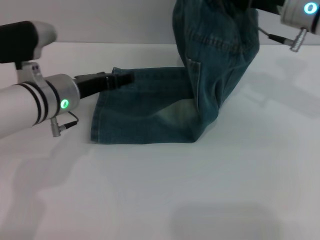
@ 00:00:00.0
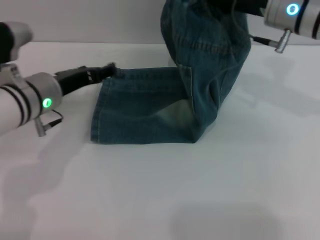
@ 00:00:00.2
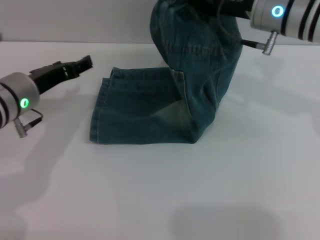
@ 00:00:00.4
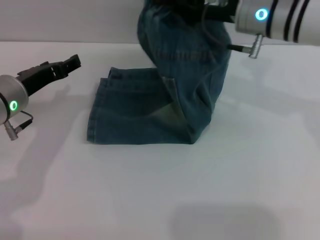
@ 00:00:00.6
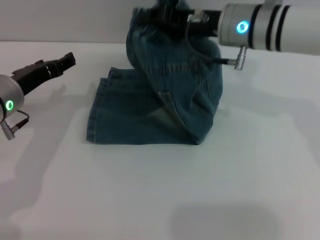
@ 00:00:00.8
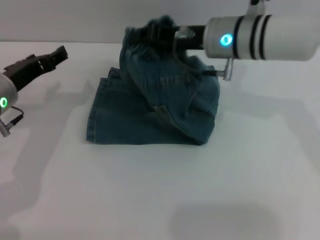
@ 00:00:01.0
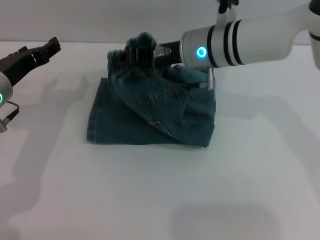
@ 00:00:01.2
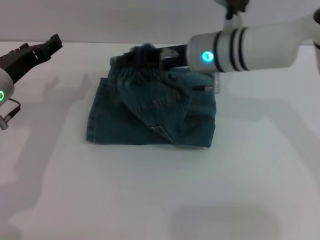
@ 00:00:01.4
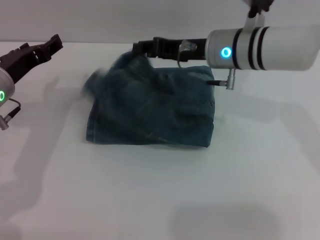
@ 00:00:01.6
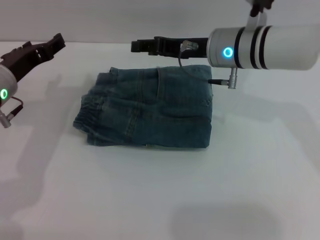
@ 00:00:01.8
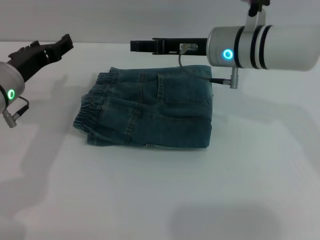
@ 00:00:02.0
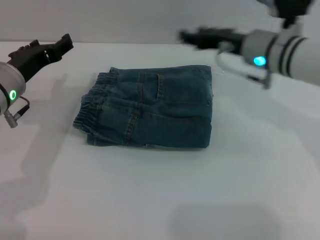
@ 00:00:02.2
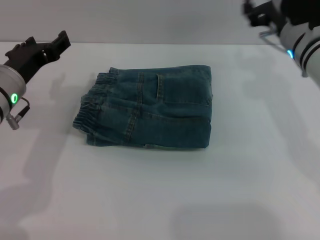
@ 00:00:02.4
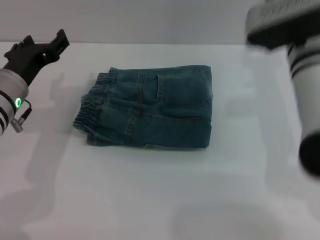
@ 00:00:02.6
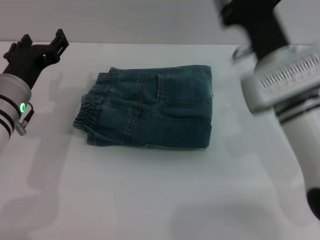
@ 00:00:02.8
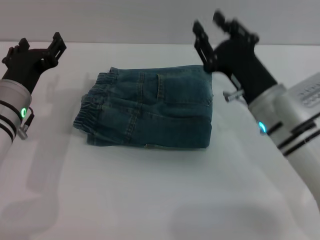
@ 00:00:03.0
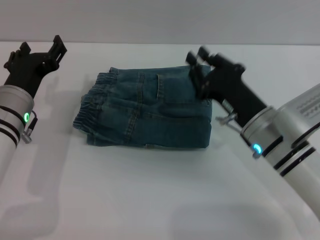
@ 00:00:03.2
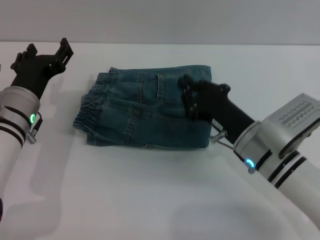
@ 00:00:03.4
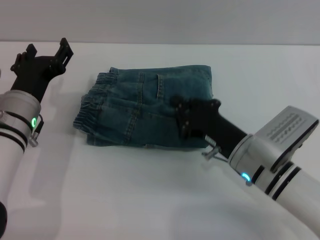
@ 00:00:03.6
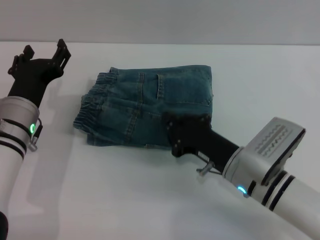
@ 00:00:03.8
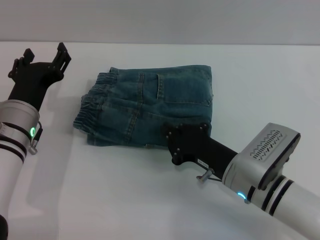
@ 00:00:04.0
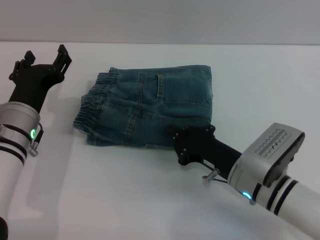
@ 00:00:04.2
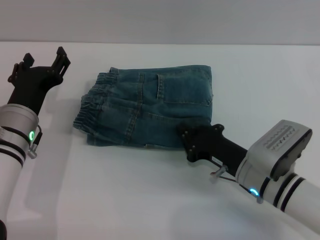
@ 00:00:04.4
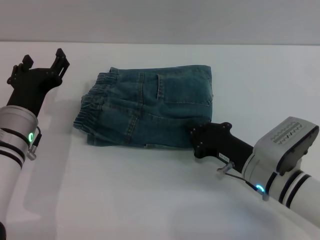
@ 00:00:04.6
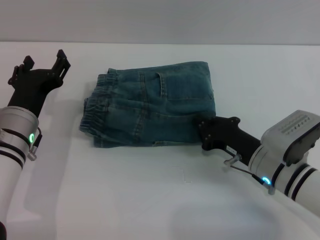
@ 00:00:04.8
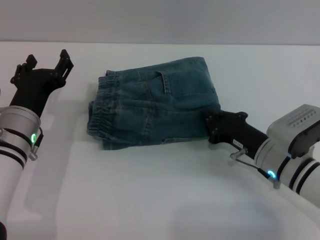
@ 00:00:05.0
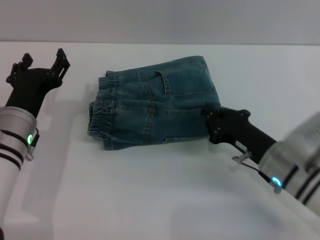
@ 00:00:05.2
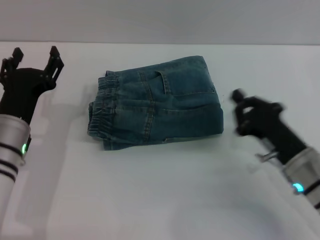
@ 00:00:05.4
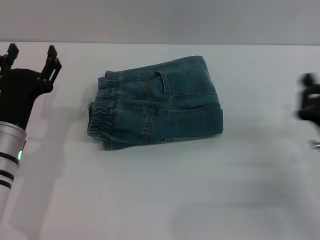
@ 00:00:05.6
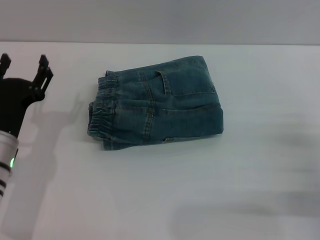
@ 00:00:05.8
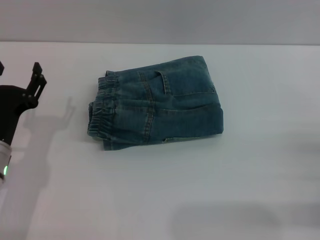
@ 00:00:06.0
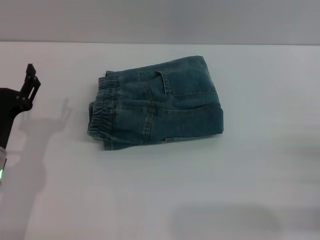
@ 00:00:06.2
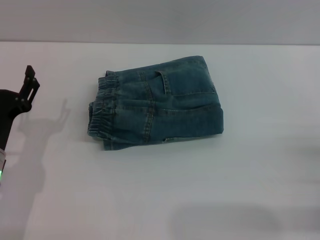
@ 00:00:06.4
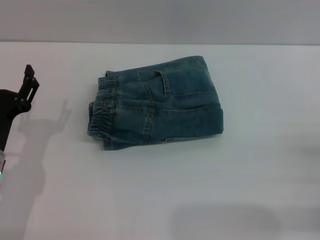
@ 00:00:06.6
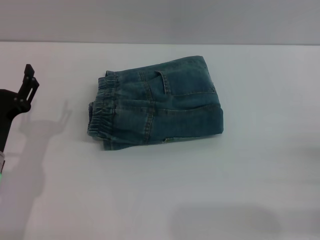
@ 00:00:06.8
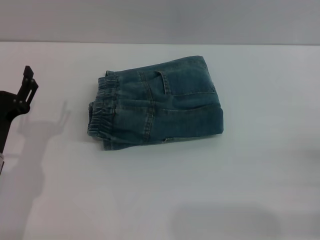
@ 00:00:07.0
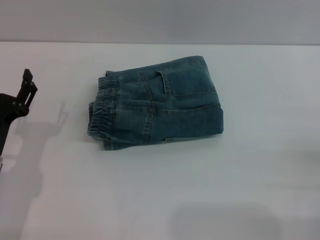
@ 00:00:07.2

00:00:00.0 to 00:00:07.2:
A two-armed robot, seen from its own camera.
Step, 00:00:00.0 to 00:00:02.2: Fold the pants from right to left with the right gripper.
Step, 00:00:02.4 to 00:00:05.4: Place the folded trousers onto the center area with the right grippers.
00:00:00.0 to 00:00:01.4: The right gripper is displaced to the left by some 10 cm; the left gripper travels to the left by some 5 cm.
00:00:01.4 to 00:00:02.8: The right gripper heads backward and to the right, covering roughly 10 cm, and opens.
00:00:02.8 to 00:00:04.4: The right gripper moves downward and backward, roughly 15 cm, and closes up.
00:00:04.4 to 00:00:05.8: The right gripper shifts about 15 cm to the right.
00:00:05.8 to 00:00:07.2: The right gripper shifts by approximately 5 cm, and opens.
